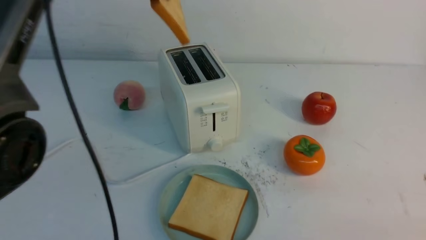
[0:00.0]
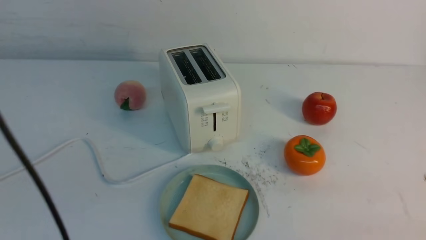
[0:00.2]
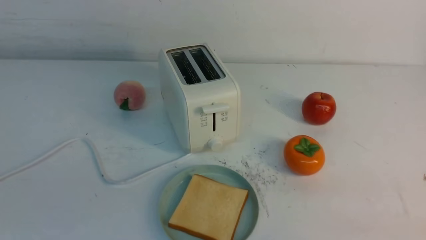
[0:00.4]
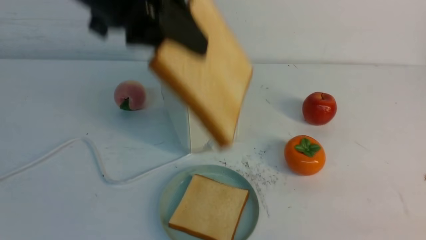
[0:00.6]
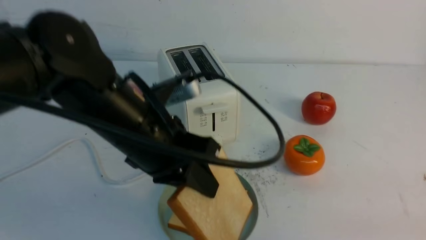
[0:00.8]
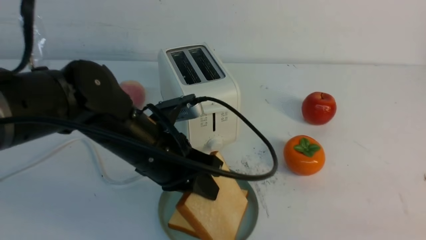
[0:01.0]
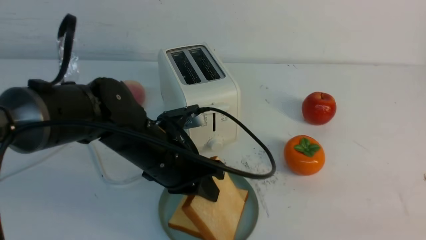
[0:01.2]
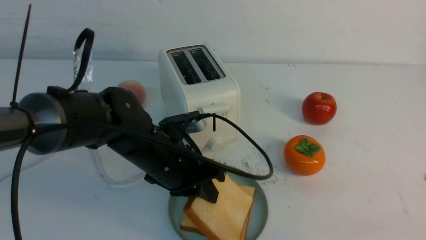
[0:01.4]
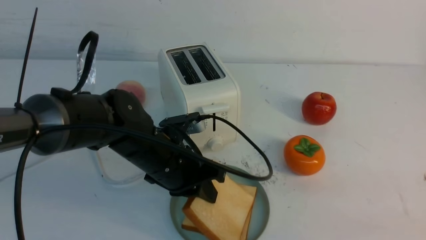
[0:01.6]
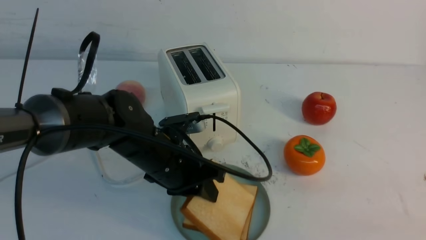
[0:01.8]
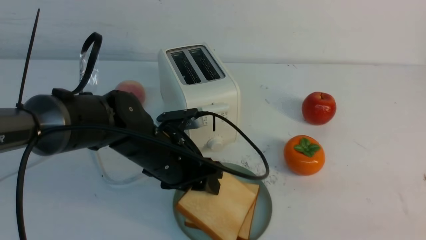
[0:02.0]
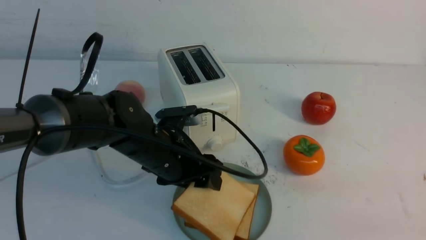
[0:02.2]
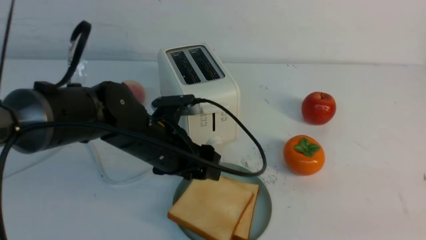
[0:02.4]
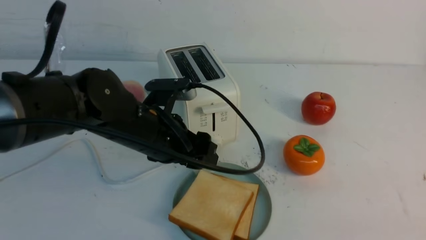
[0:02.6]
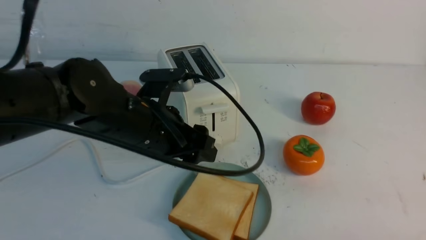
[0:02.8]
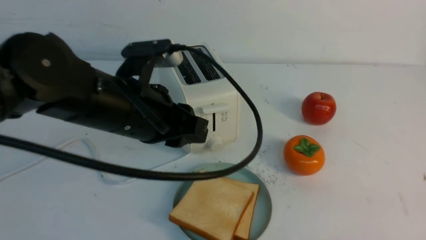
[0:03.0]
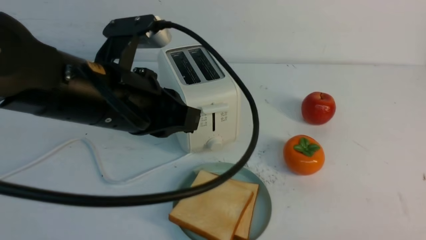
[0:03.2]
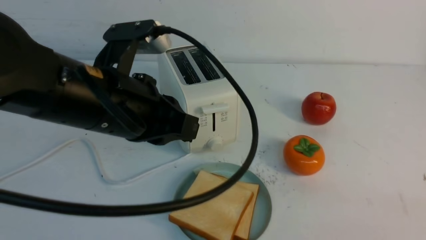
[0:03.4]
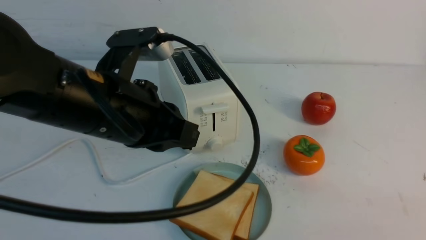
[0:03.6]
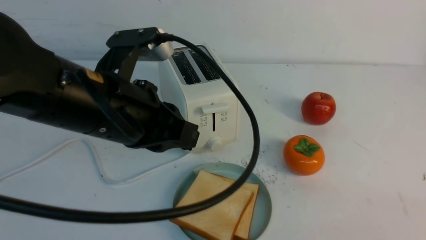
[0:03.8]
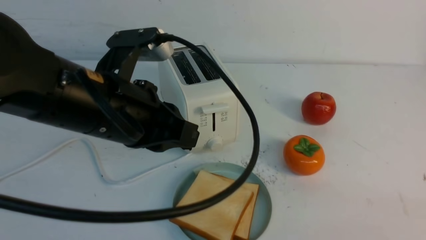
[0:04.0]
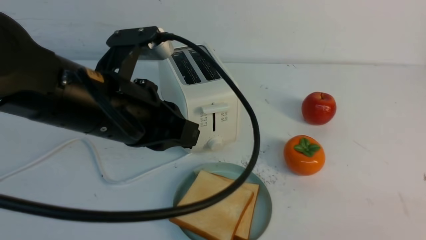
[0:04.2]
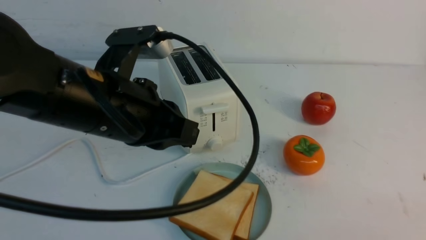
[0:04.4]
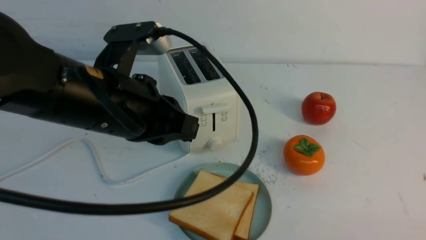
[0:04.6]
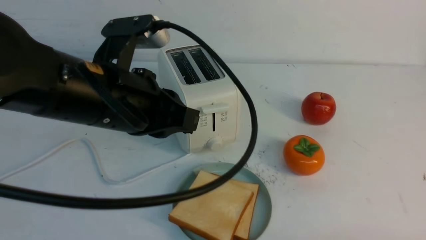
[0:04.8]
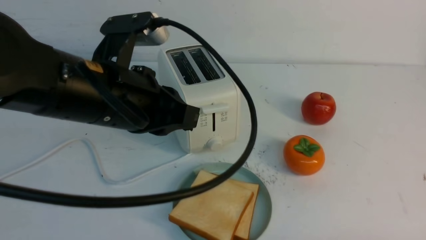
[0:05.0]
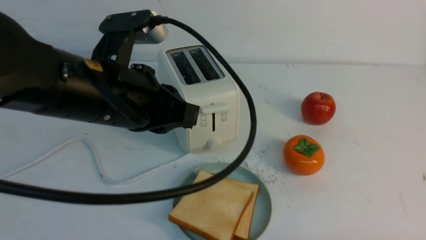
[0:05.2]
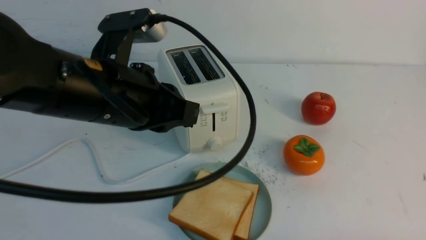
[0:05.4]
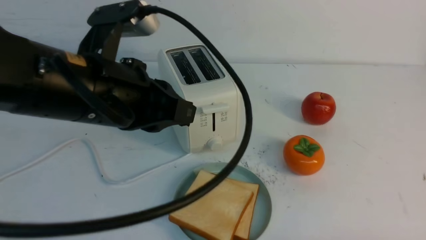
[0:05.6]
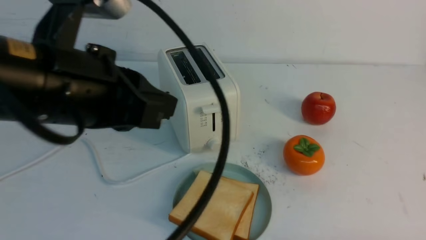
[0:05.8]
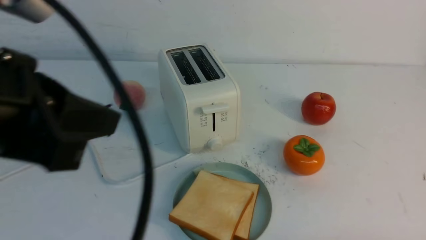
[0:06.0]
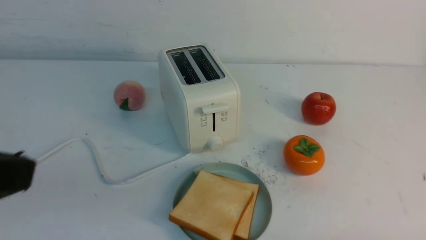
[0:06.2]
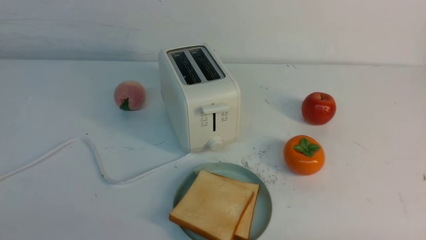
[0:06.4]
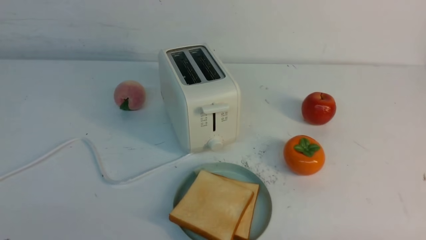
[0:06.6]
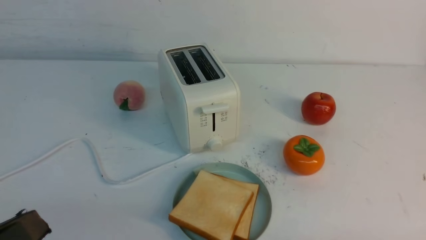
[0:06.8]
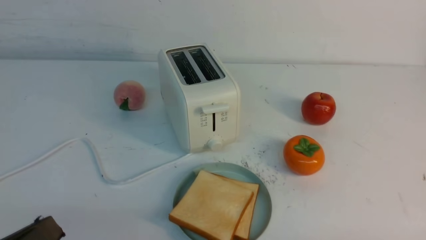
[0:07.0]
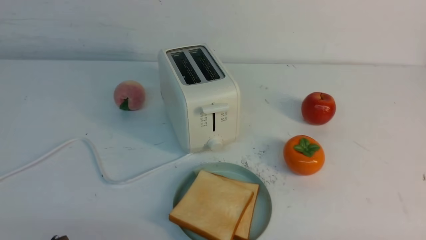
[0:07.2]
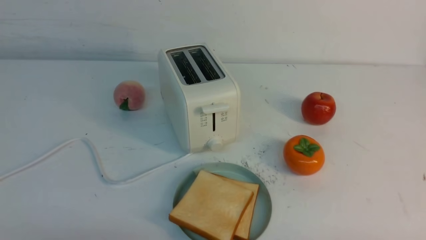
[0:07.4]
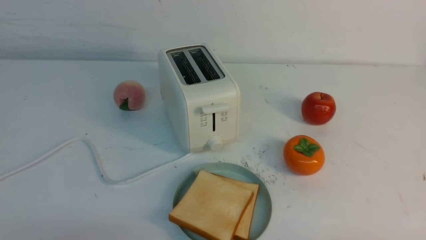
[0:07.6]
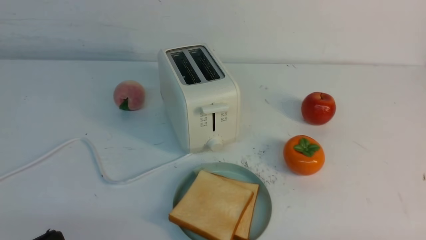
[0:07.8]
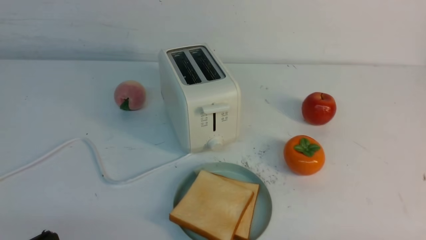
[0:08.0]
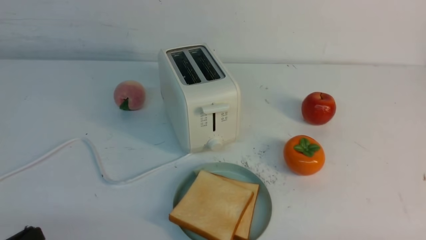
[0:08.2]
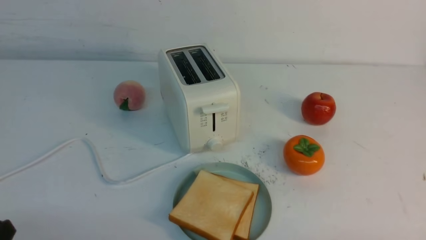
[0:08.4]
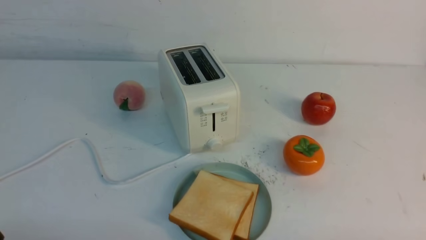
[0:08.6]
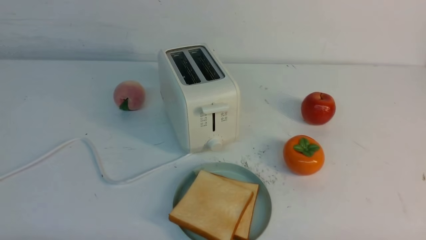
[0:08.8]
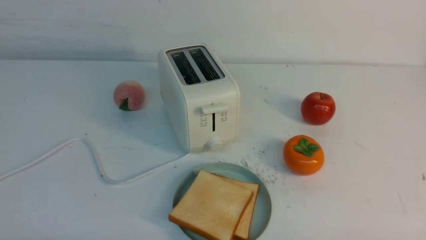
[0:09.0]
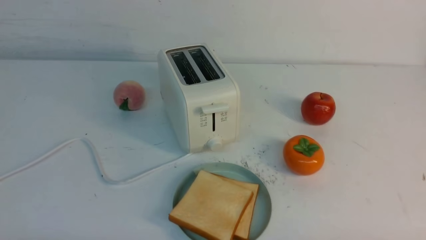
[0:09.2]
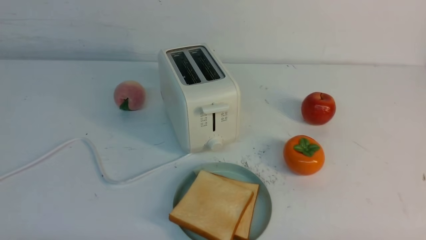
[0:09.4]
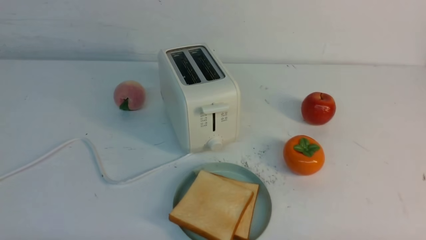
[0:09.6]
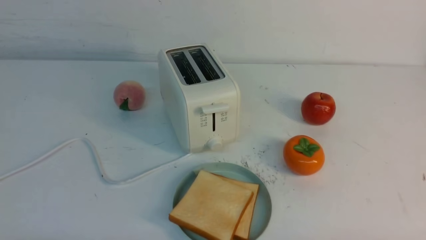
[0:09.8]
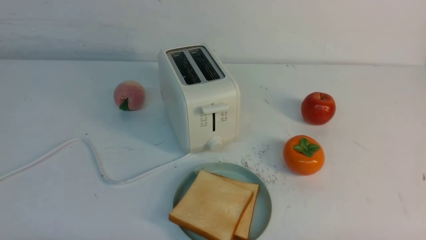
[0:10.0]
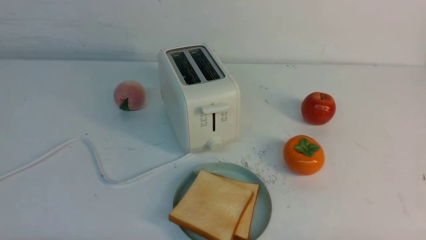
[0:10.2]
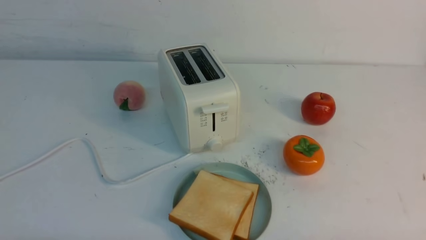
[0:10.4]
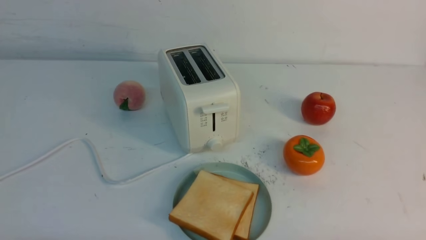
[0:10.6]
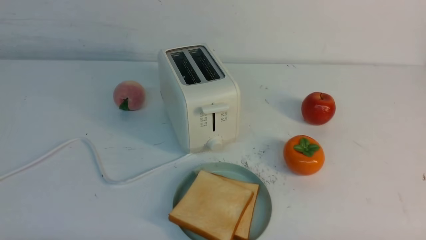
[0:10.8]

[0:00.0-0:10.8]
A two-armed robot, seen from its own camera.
Task of the whole recording: take toasted bread from bread machine on white table place on plate.
Step, 0:00.0 to 0:02.4: use the left arm to put a slice of bread into the empty plate.
0:00.0 to 0:01.6: The left gripper is displaced downward and backward by some 30 cm.
0:01.6 to 0:03.0: The left gripper shifts some 10 cm upward, and opens and closes again.
0:03.0 to 0:04.6: The left gripper closes its fingers; the right gripper moves downward, some 10 cm.
0:04.6 to 0:06.2: The right gripper travels downward by about 5 cm; the left gripper moves backward and to the left, about 20 cm.
0:06.2 to 0:07.8: The left gripper travels downward by approximately 20 cm.
0:09.2 to 0:10.8: Both grippers stay put.

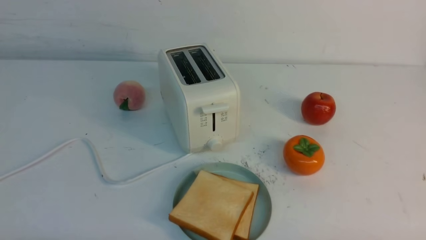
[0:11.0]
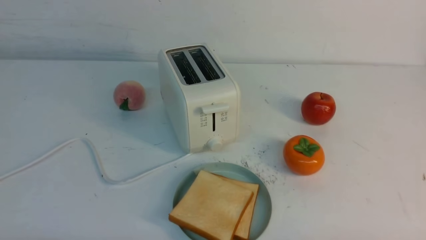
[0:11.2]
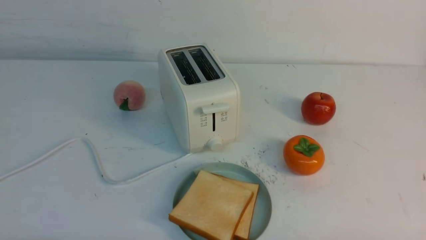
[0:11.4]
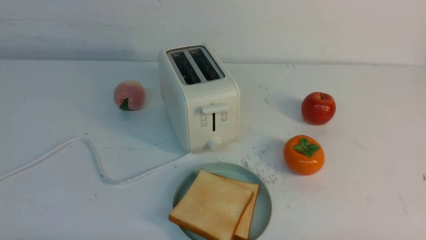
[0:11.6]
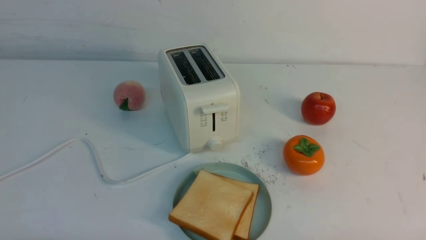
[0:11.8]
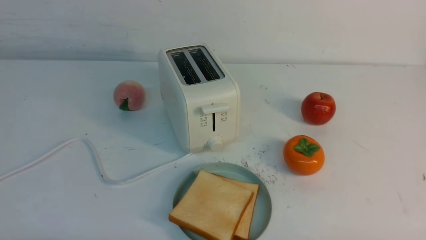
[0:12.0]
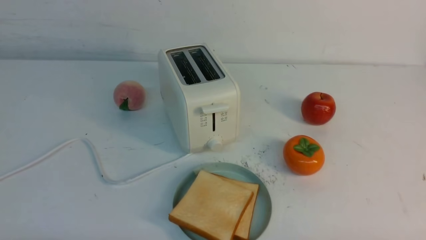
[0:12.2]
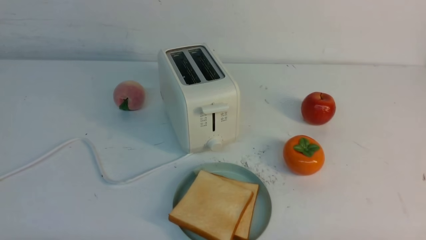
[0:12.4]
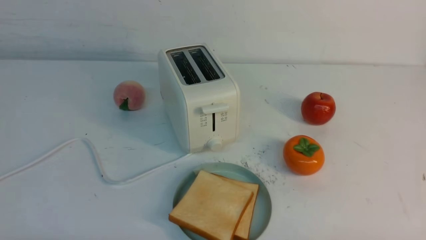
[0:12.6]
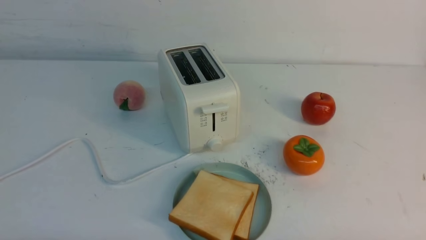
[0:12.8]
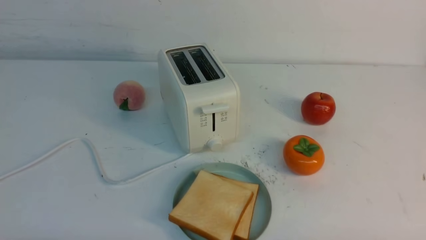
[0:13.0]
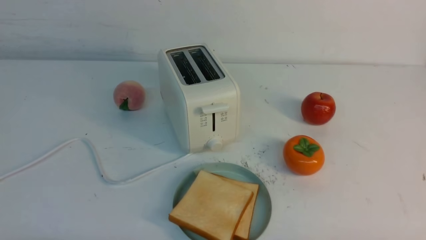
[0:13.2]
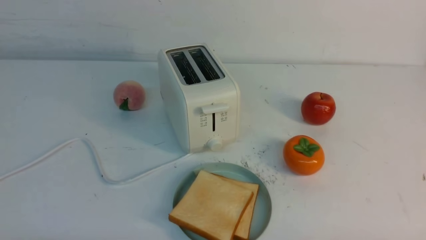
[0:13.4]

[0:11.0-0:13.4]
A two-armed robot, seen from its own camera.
Task of the whole recording: take toasted bread from bread machine on white table place on plate.
0:11.0 to 0:13.4: Both grippers stay put.

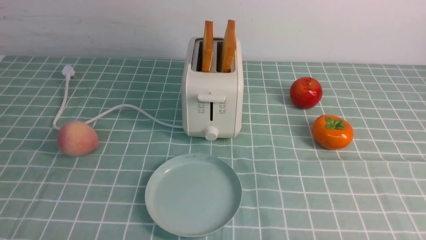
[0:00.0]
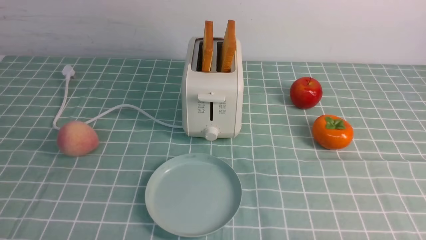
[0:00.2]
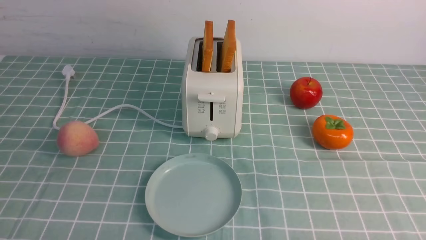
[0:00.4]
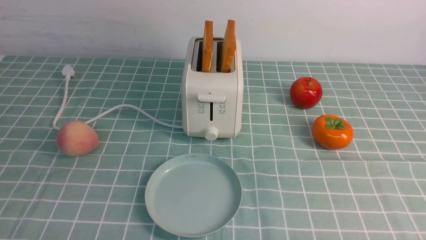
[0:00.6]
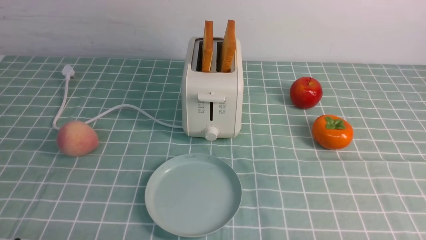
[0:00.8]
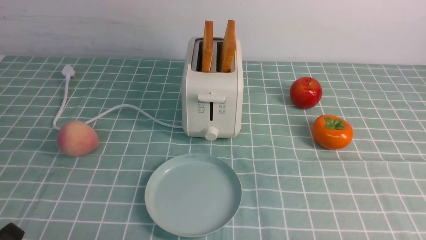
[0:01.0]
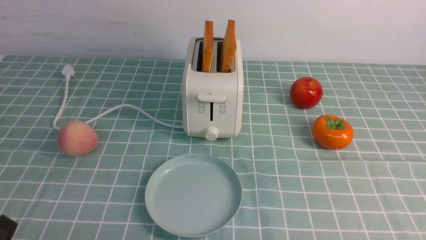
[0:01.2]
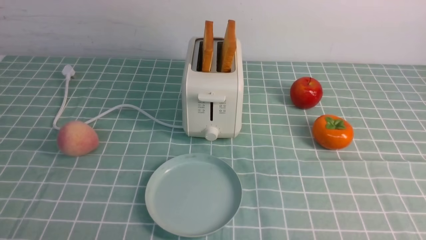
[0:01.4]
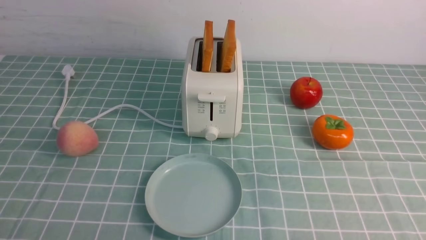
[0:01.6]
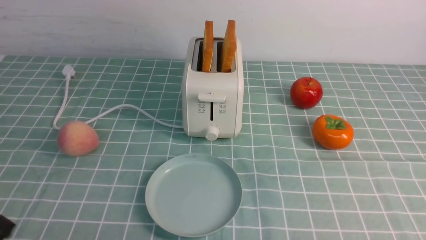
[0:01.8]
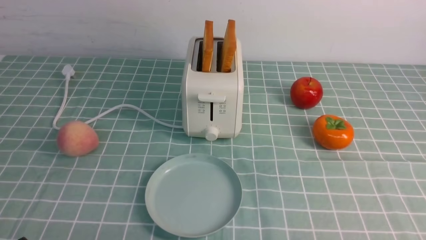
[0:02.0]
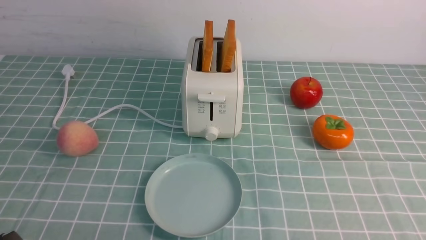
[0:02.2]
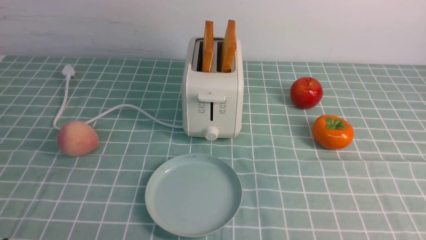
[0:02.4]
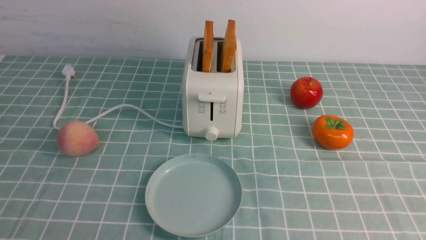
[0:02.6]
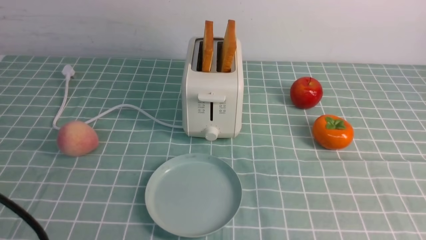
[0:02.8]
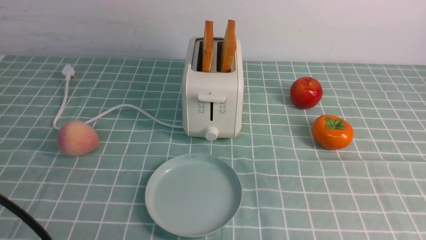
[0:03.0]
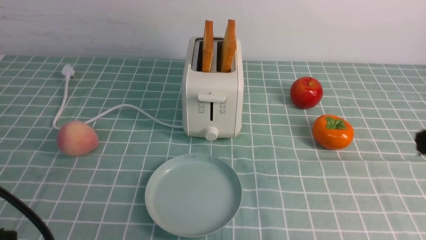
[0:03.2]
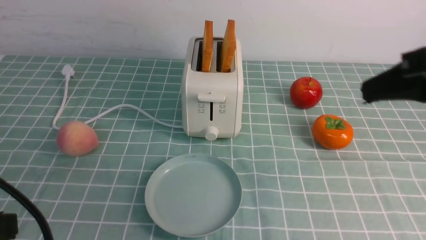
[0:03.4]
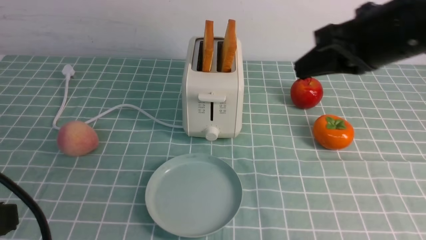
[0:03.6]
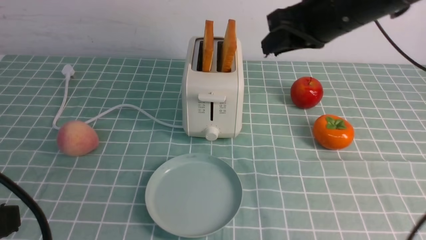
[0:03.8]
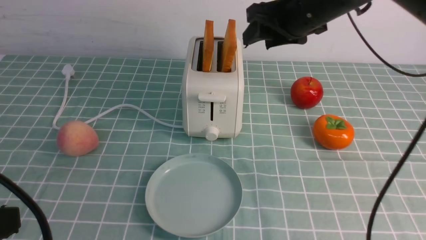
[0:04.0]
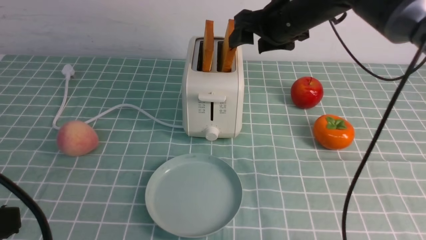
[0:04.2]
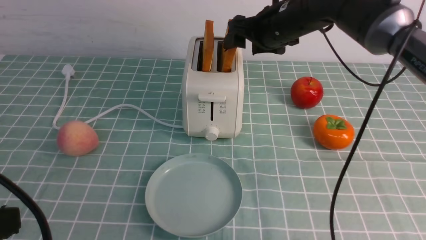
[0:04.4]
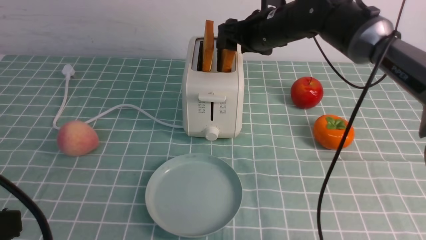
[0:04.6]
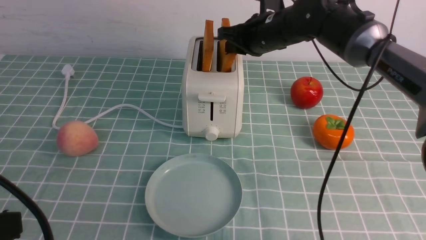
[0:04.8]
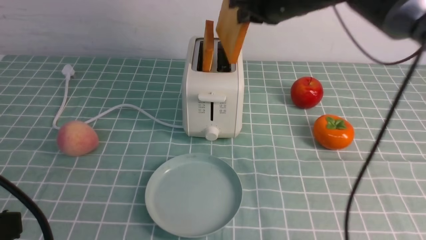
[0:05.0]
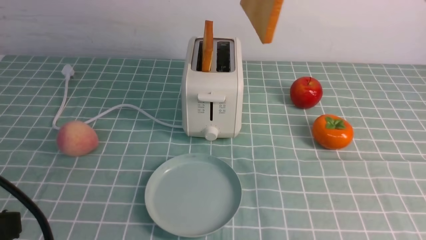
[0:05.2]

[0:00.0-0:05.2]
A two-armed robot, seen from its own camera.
Task of the whole recording: take toasted bread from bread machine on blue coffee table place on plate.
Step, 0:00.0 to 0:05.0: use the right arm to take out a slice of bread.
0:01.8 to 0:03.4: The right gripper travels upward and forward by roughly 25 cm, and closes. Meanwhile the left gripper moves upward, roughly 10 cm.
0:03.4 to 0:05.2: The right gripper shifts some 15 cm forward and to the left, and opens and closes again.
